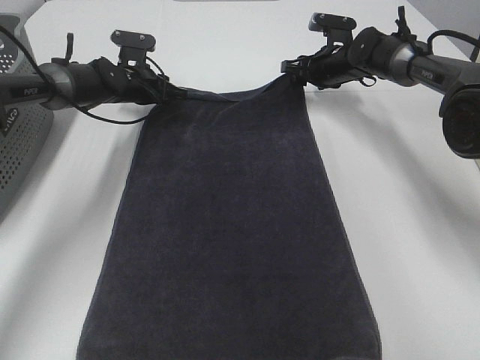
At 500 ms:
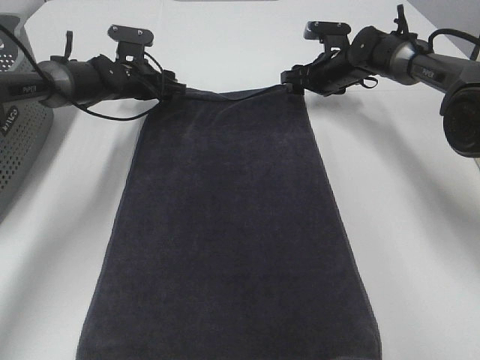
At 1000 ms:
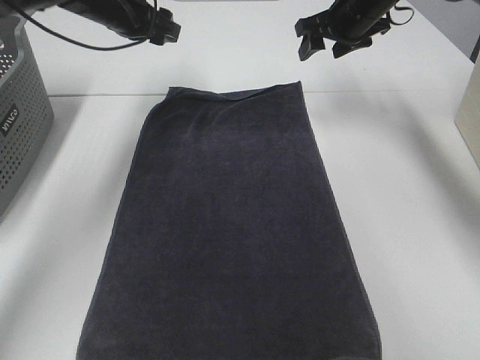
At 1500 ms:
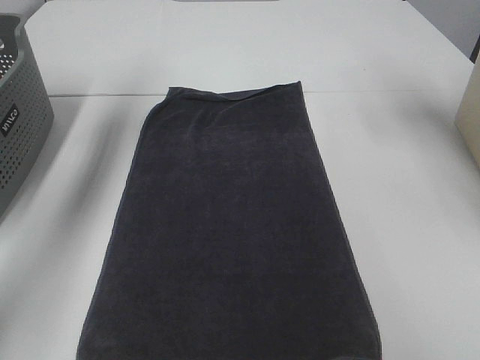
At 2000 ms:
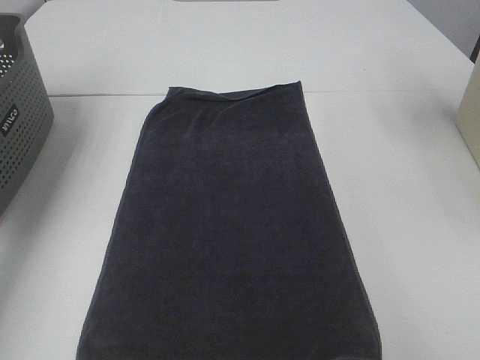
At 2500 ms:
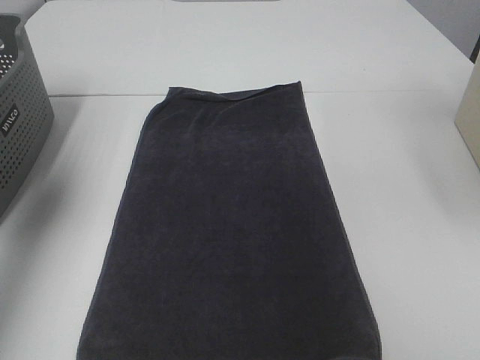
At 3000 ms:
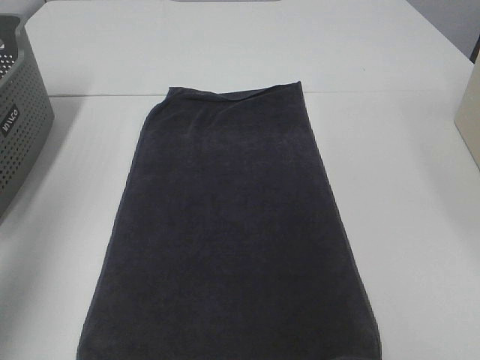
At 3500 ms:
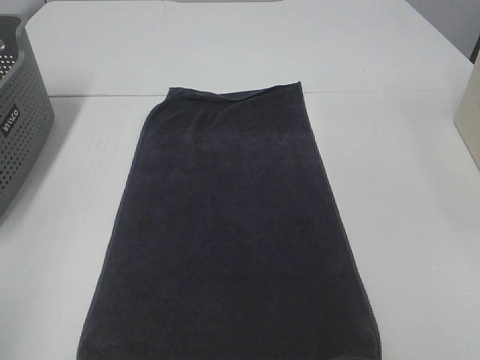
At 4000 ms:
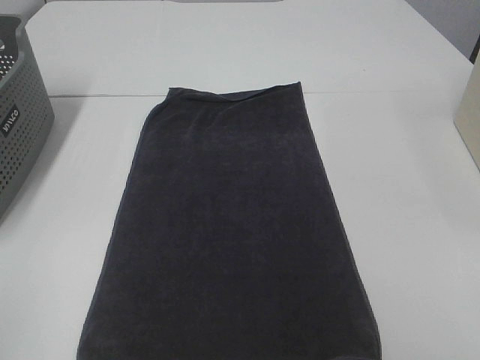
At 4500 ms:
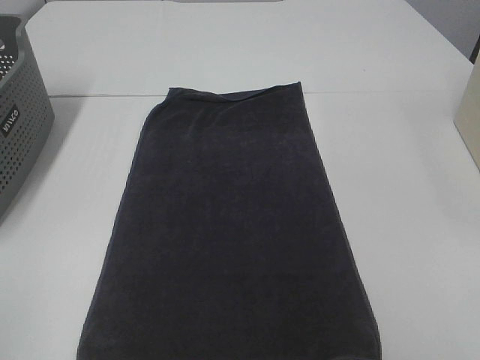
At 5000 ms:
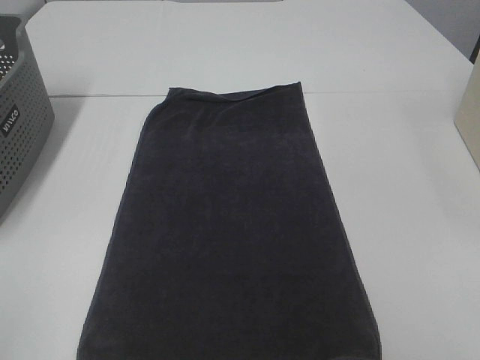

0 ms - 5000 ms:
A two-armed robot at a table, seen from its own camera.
Task of the whole recording: Remove the towel and place it.
0 ms - 2500 ms: The right gripper goes some 40 cm upward and backward, while the left gripper travels upward, backward and to the left by about 40 cm, and opens its fingers.
2500 ms - 5000 ms: The left gripper heads backward, covering roughly 30 cm.

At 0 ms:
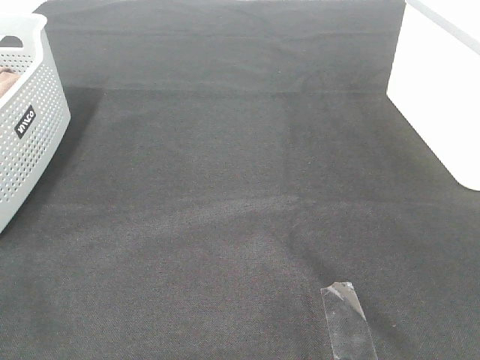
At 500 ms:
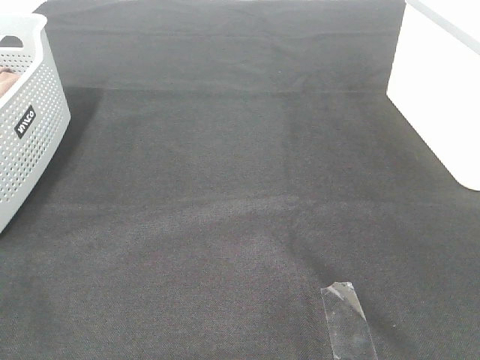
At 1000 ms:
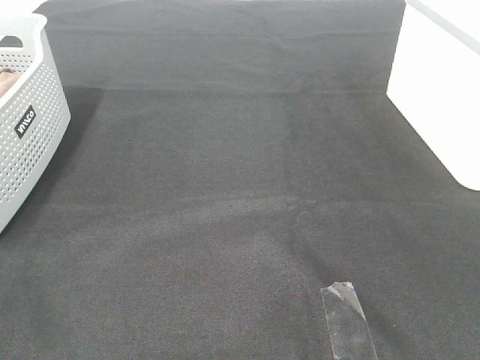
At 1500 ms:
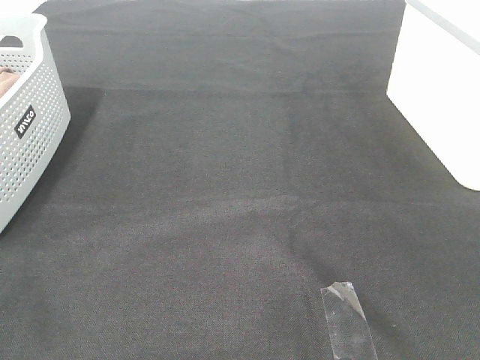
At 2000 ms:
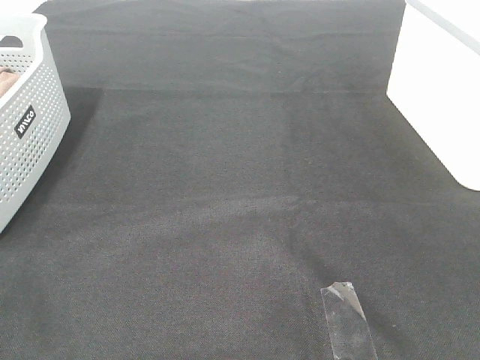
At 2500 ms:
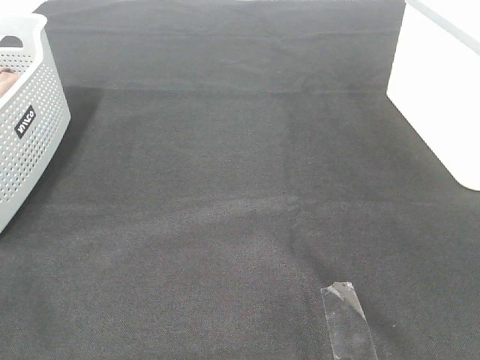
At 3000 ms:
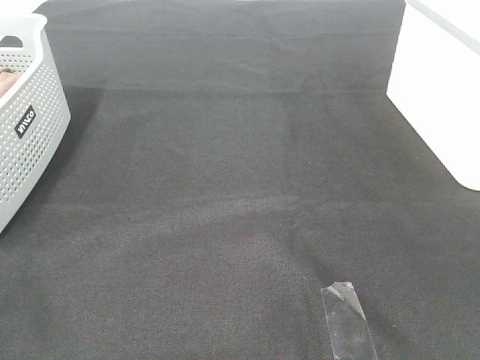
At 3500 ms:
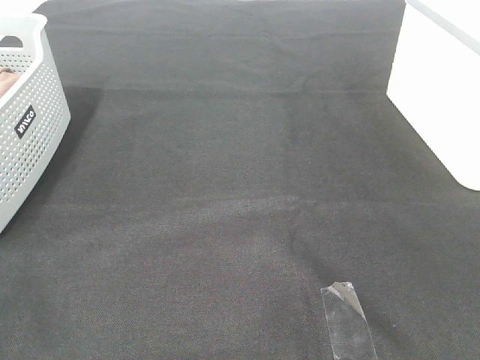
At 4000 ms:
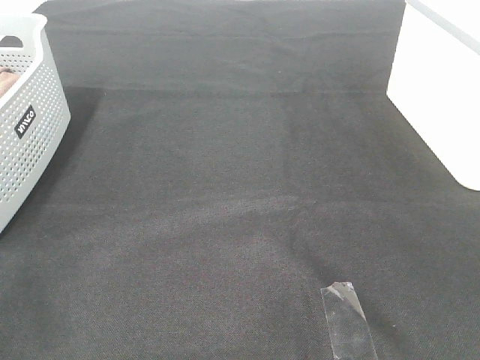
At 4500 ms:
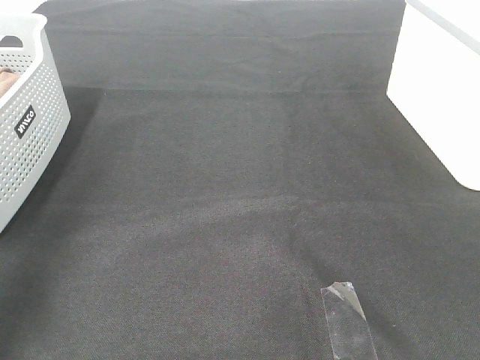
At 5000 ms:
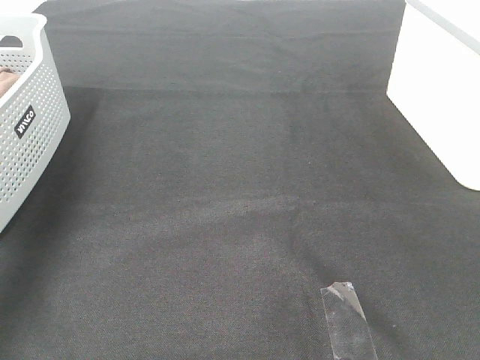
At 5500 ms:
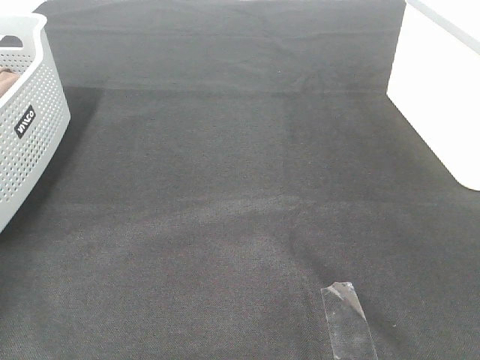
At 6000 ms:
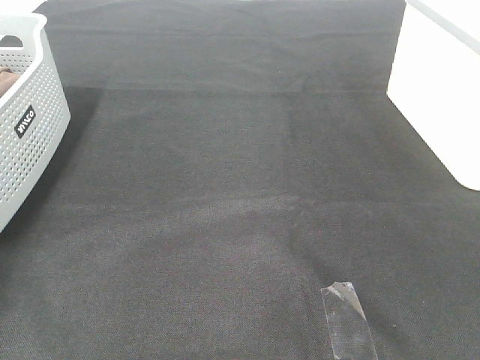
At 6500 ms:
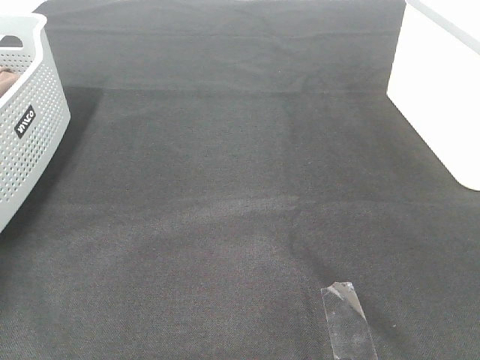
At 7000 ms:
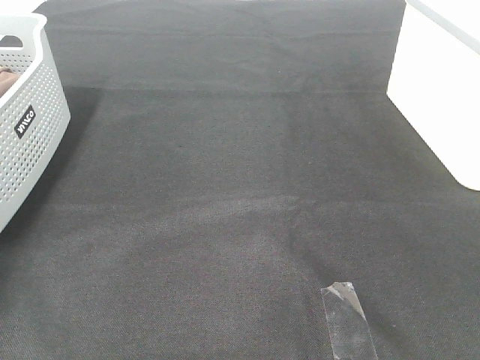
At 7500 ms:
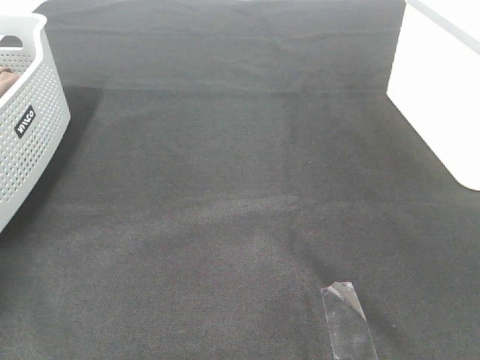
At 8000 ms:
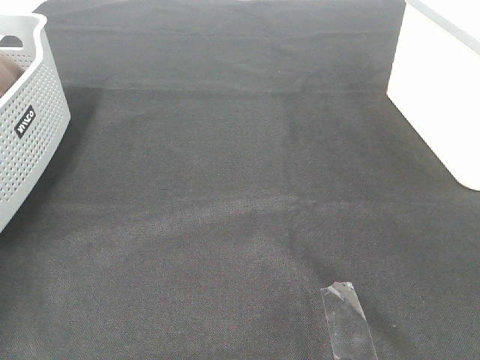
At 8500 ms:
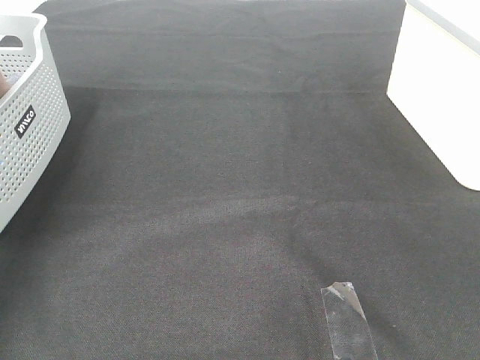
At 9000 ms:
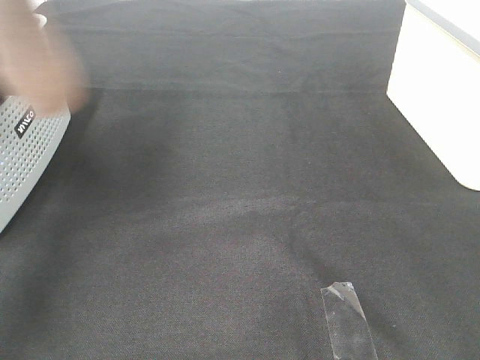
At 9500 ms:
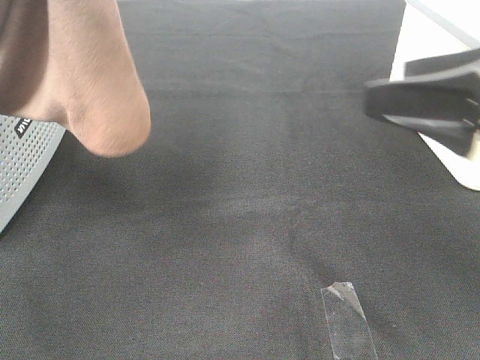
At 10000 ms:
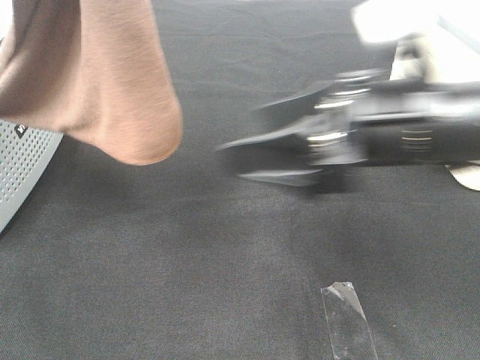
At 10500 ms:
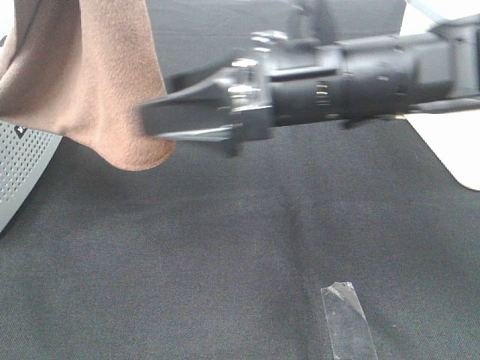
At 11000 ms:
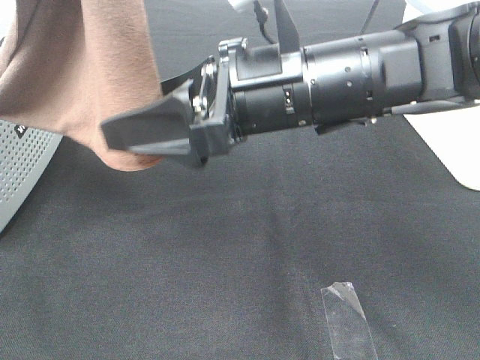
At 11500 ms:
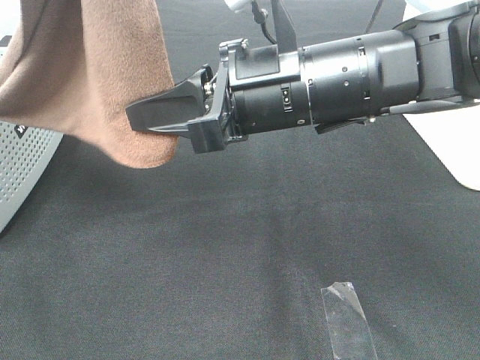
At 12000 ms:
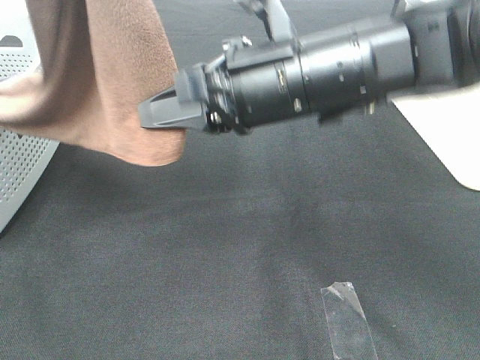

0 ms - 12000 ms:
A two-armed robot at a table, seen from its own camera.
Task of the whole recording: Remove the towel and place it.
0 ms - 2000 ms: Neither gripper changes place.
8000 ms - 10000 ms: The left gripper goes roughly 30 cm to the right, backward and upward; the right gripper goes about 30 cm forward and to the left.
10000 ms - 12000 ms: The right gripper is displaced to the left by approximately 5 cm, and closes.

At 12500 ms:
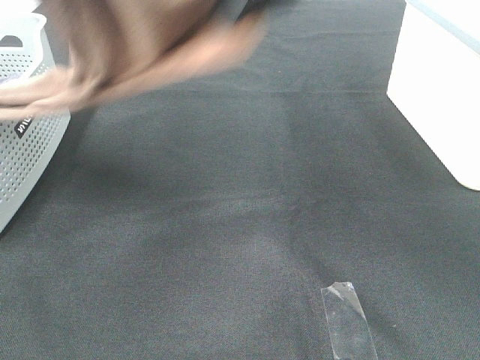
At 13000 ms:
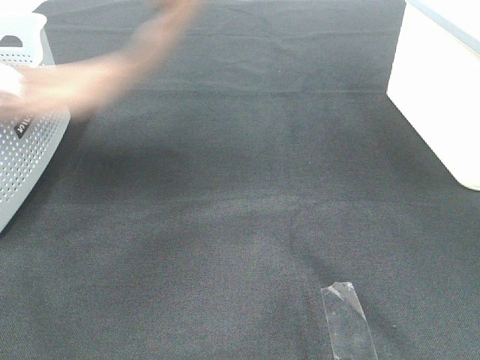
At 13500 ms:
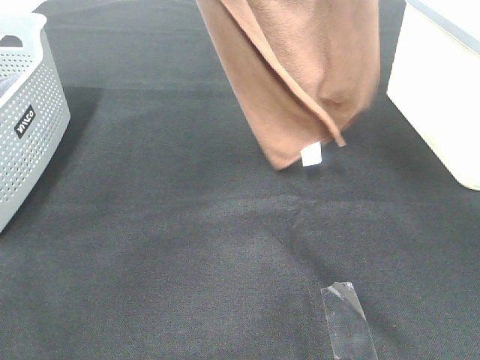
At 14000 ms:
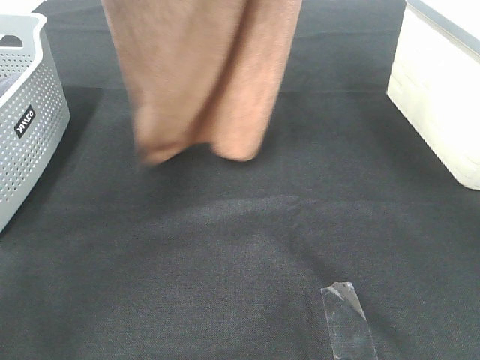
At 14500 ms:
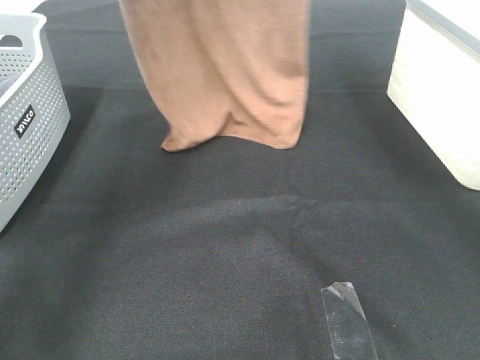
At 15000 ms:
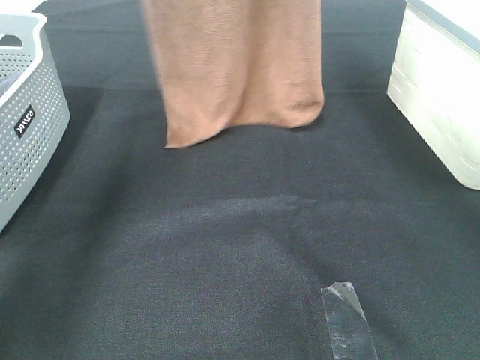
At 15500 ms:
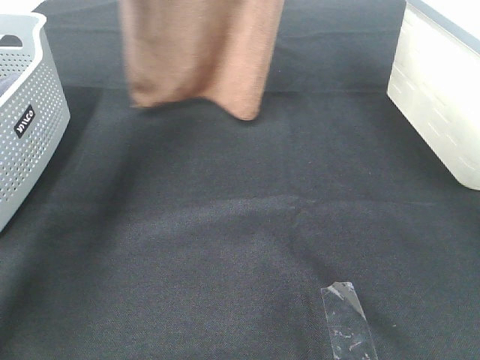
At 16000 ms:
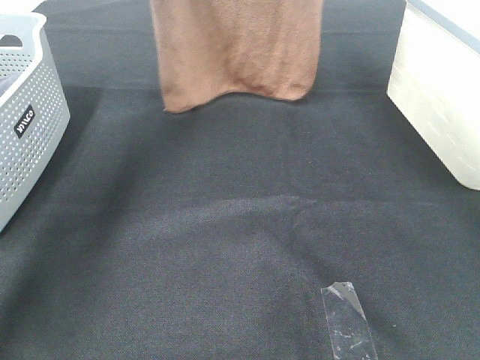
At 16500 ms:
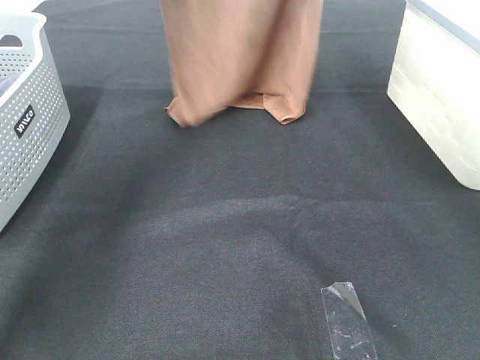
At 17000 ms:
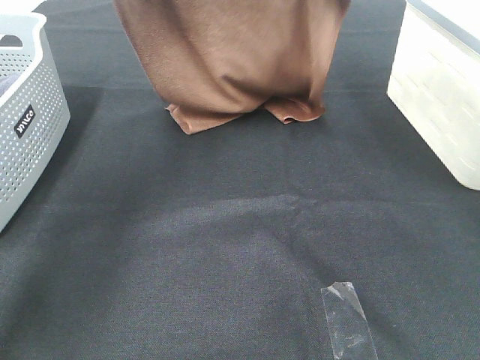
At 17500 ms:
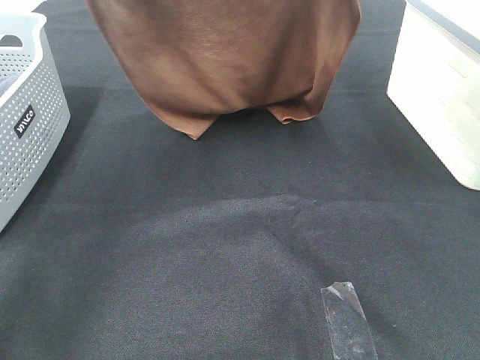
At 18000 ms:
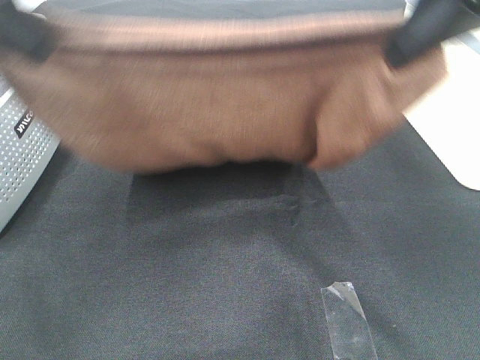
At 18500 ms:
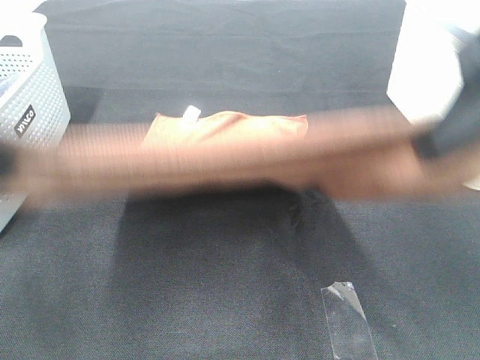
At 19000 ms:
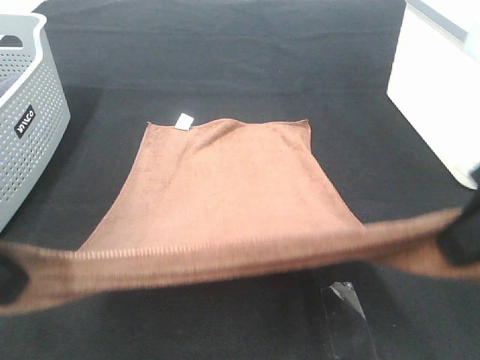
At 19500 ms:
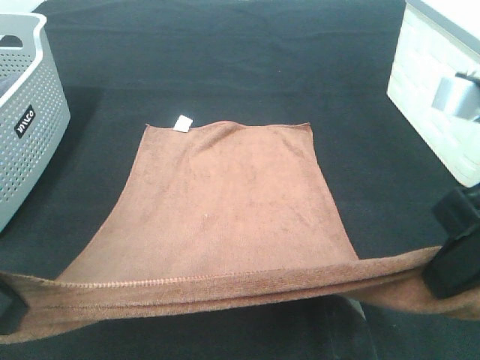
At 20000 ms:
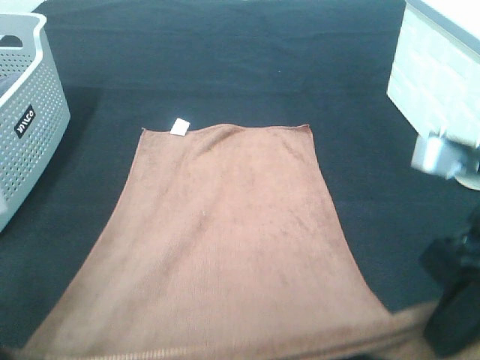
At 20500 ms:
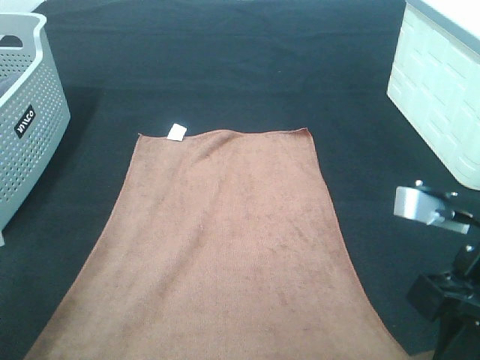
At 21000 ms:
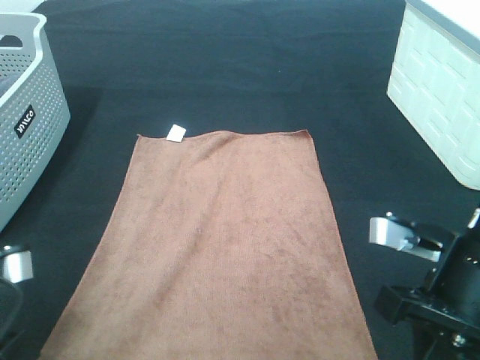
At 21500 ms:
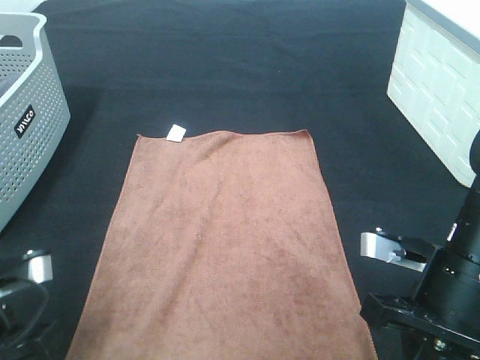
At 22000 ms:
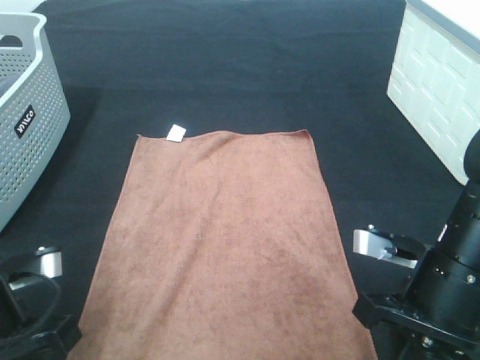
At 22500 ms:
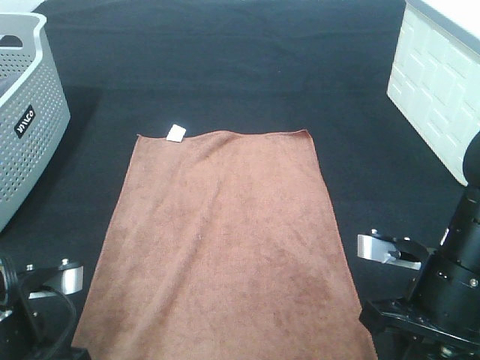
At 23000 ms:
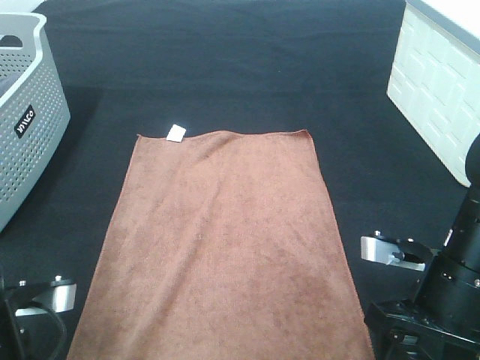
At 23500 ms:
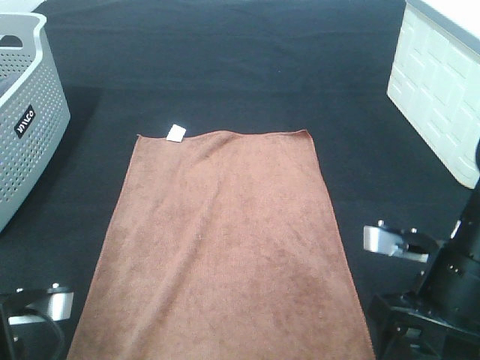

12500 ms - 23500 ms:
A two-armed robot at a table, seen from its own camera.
Task of the whole recording: Remove the towel and place it.
Step, 12500 ms - 18500 ms: Left hand: spread the brown towel flat on the table.
Step, 12500 ms - 18500 ms: Right hand: spread the brown towel flat on the table.
12500 ms - 14500 ms: The right gripper shifts some 15 cm forward and upward, while the left gripper travels forward by some 15 cm.
14500 ms - 16000 ms: The left gripper travels forward by approximately 10 cm. Meanwhile the right gripper ends up about 5 cm from where it was.
16000 ms - 18000 ms: The grippers both shift backward by roughly 25 cm.
18000 ms - 20000 ms: The two grippers go some 20 cm downward and backward.
20000 ms - 21500 ms: Both grippers move downward, about 10 cm.
21500 ms - 23500 ms: The right gripper opens up. The left gripper opens its fingers.
